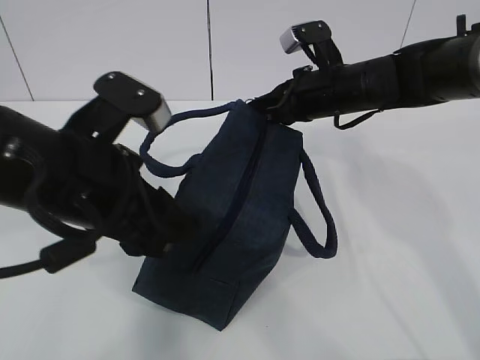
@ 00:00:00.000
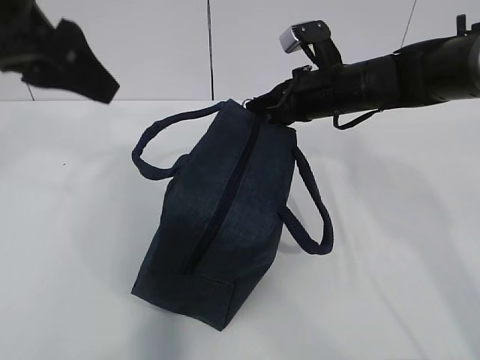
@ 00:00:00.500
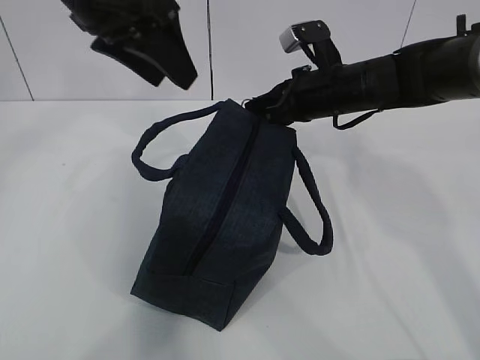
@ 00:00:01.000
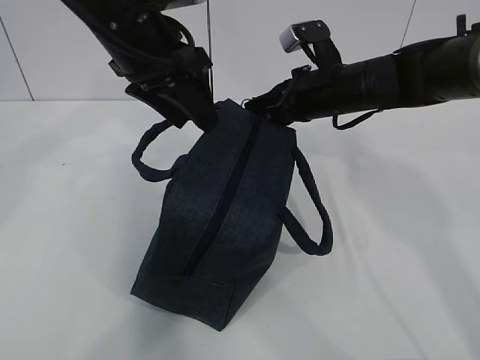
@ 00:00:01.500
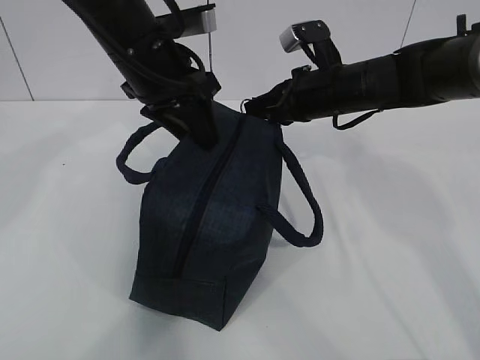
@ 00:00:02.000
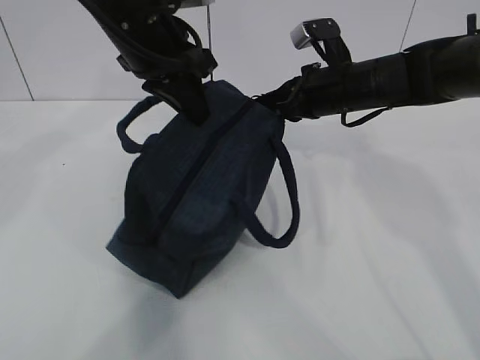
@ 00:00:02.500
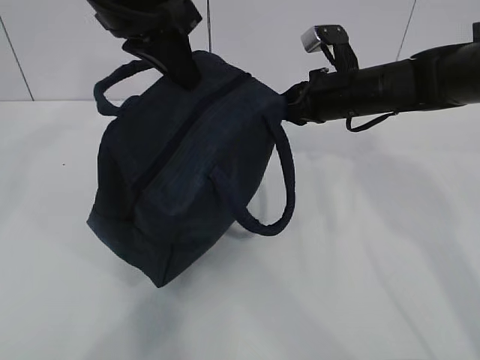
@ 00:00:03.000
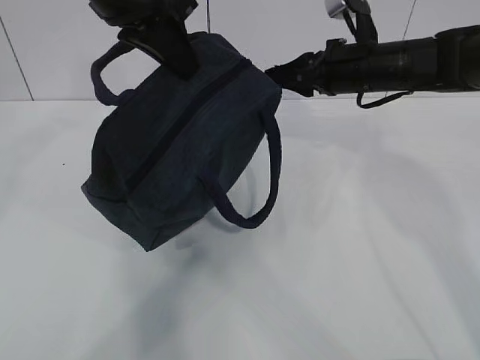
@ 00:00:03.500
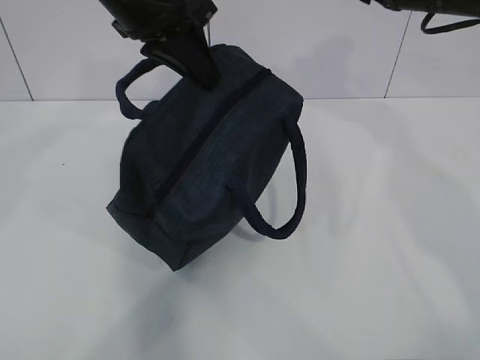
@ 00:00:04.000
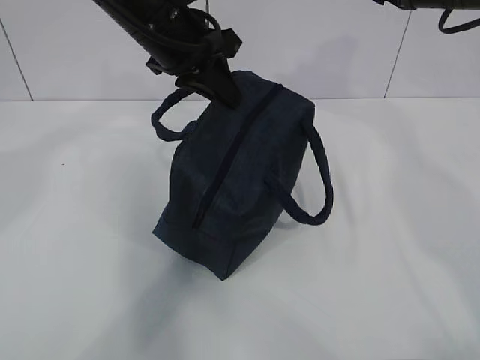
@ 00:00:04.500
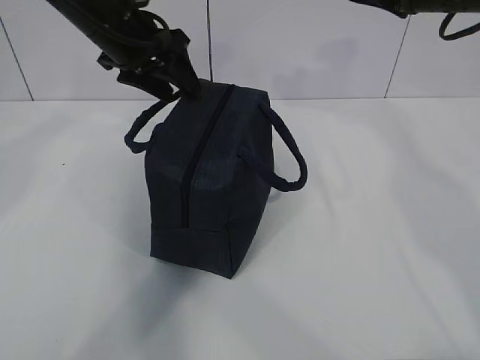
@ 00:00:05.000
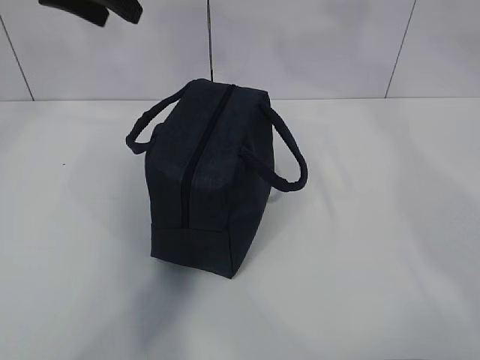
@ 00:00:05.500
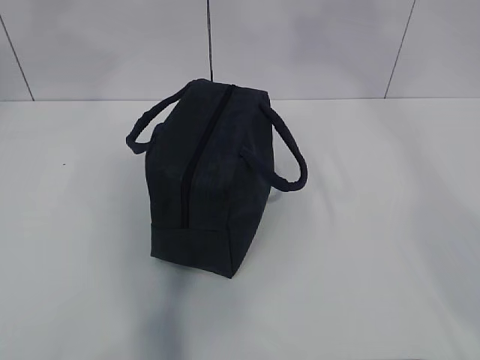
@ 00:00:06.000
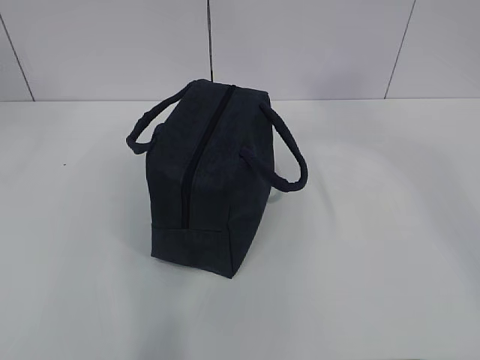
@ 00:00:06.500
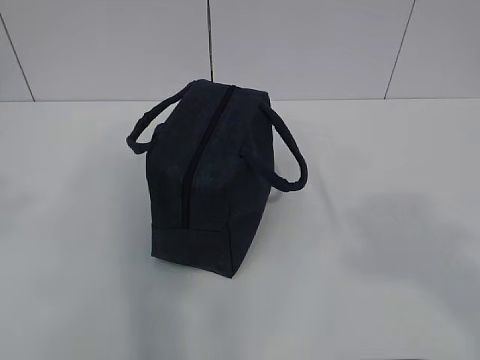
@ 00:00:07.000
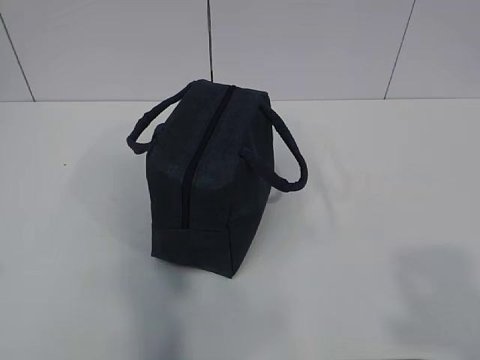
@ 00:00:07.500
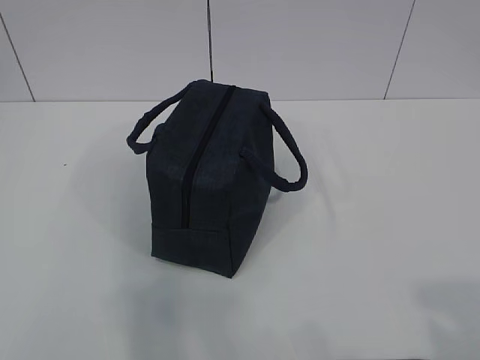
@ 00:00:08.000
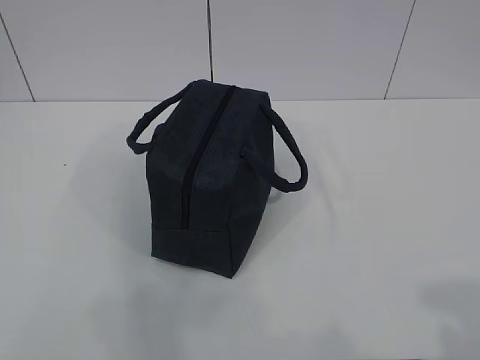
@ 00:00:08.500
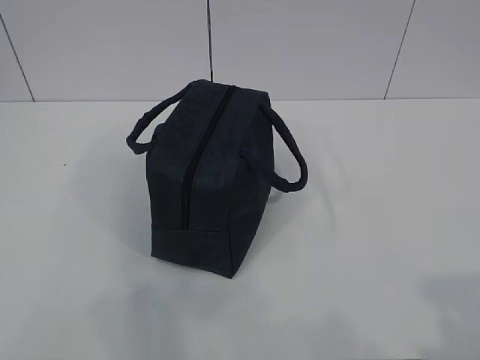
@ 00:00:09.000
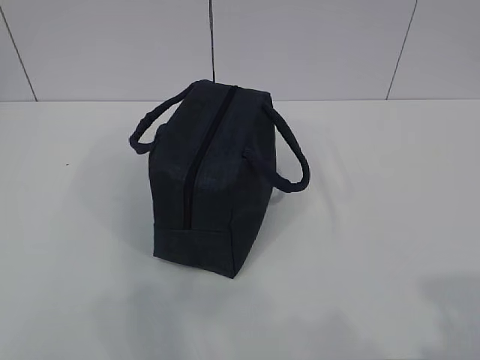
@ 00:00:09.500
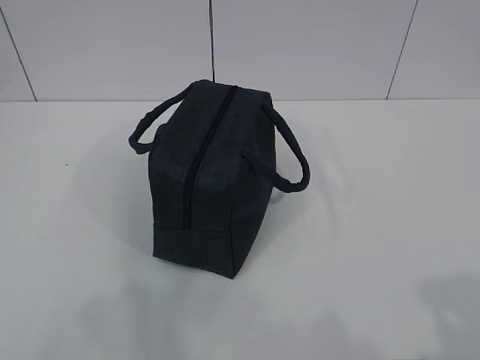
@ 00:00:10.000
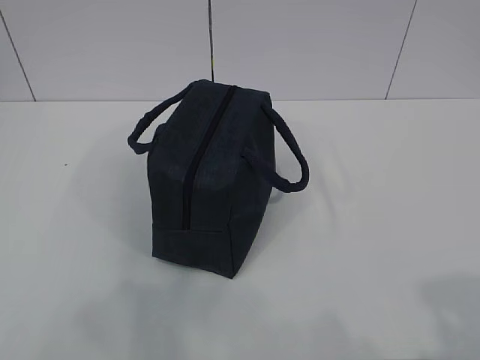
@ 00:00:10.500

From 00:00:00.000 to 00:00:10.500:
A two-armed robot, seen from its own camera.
From 00:00:00.000 to 00:00:02.000: The left gripper moves forward, approximately 15 cm, and closes its fingers.
From 00:00:02.000 to 00:00:04.000: The left gripper goes approximately 5 cm upward, and closes, while the right gripper travels upward and to the right by roughly 15 cm, and opens its fingers.
From 00:00:04.000 to 00:00:06.500: The left gripper shifts some 35 cm backward, upward and to the left, and opens its fingers, while the right gripper shifts about 40 cm backward and upward.
From 00:00:06.500 to 00:00:08.500: The right gripper shifts approximately 30 cm downward.
From 00:00:08.500 to 00:00:10.500: The grippers stay close to where they were, moving slightly.
